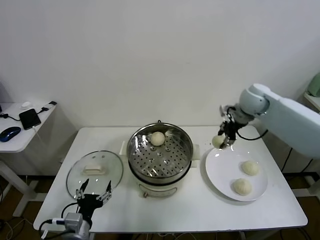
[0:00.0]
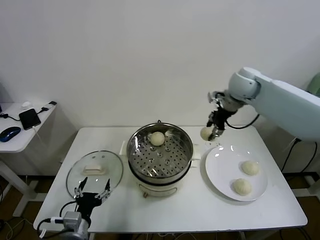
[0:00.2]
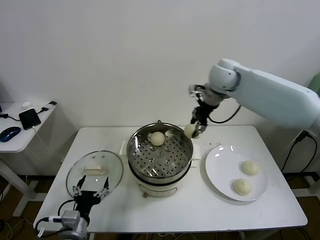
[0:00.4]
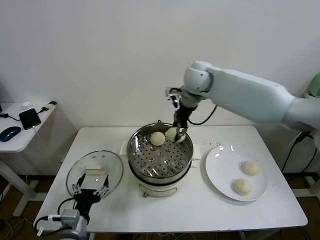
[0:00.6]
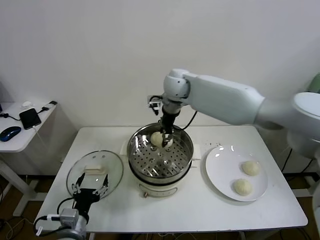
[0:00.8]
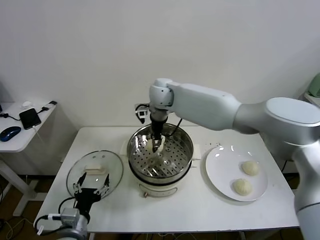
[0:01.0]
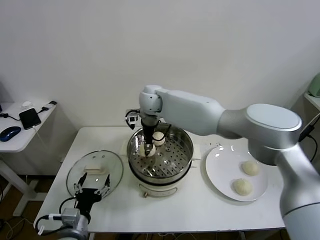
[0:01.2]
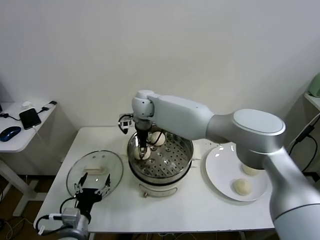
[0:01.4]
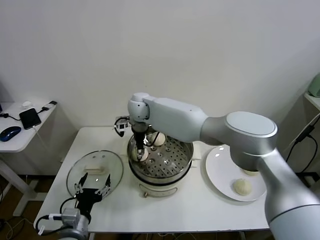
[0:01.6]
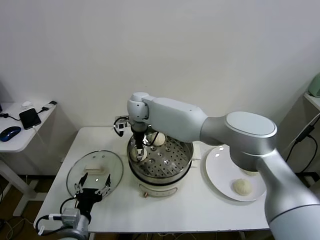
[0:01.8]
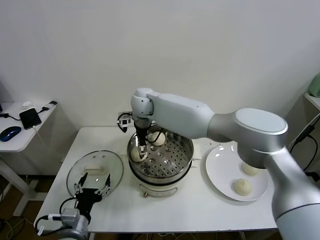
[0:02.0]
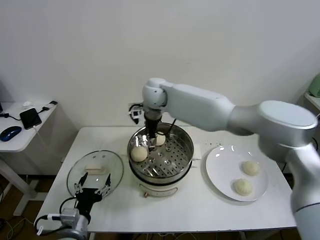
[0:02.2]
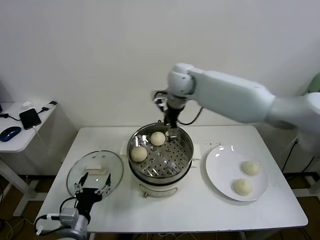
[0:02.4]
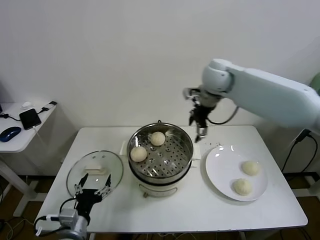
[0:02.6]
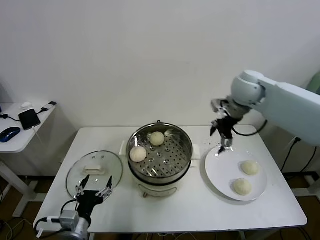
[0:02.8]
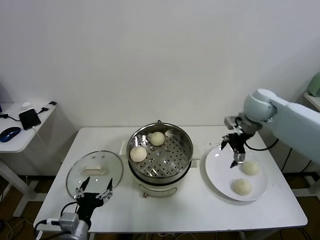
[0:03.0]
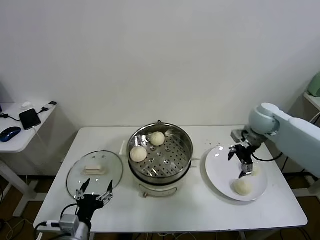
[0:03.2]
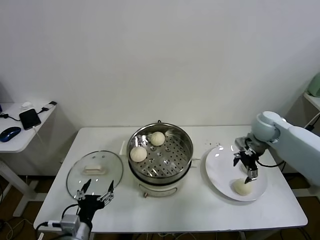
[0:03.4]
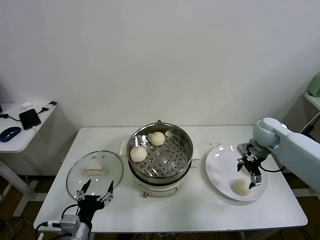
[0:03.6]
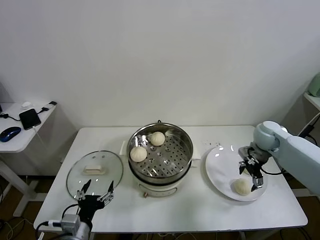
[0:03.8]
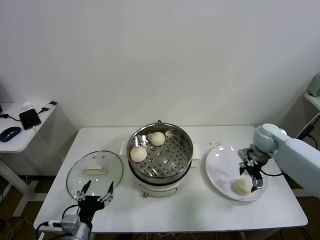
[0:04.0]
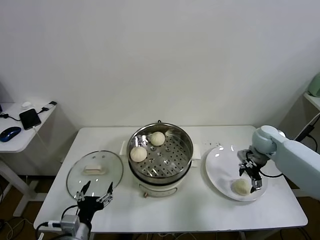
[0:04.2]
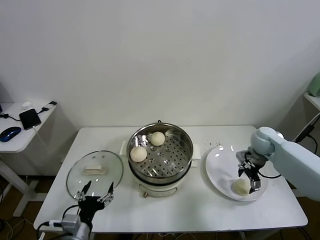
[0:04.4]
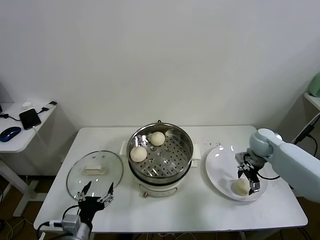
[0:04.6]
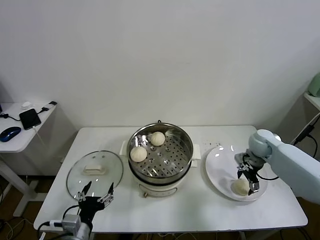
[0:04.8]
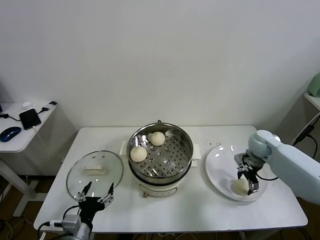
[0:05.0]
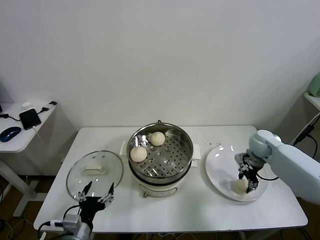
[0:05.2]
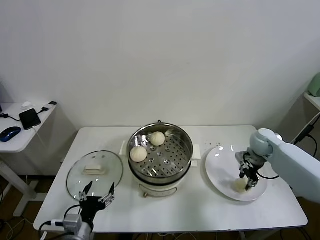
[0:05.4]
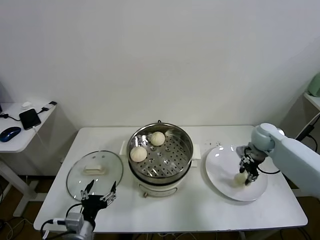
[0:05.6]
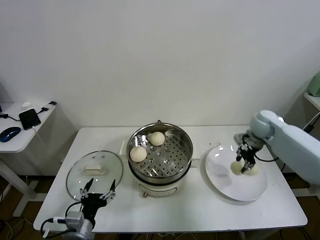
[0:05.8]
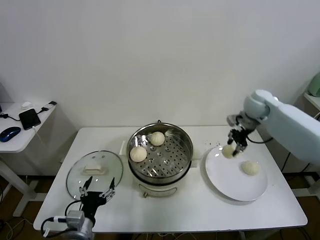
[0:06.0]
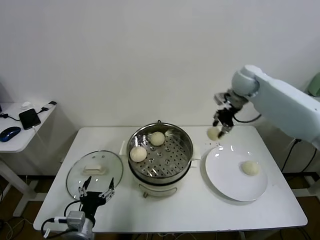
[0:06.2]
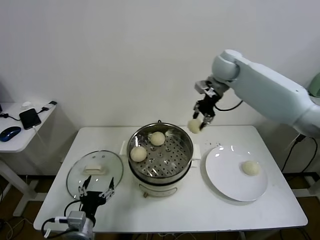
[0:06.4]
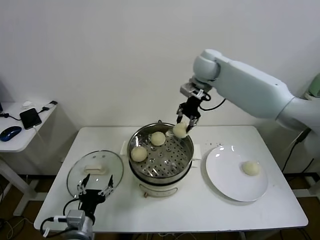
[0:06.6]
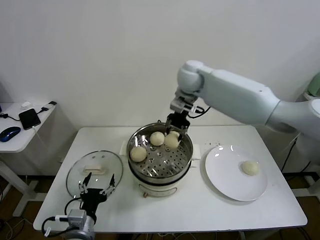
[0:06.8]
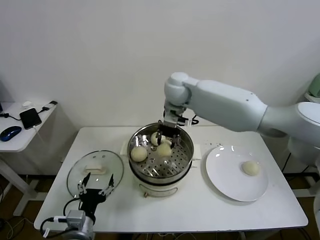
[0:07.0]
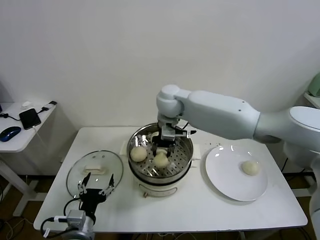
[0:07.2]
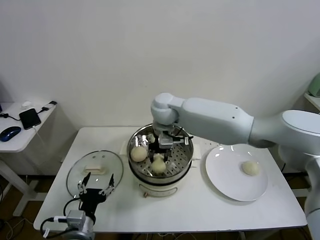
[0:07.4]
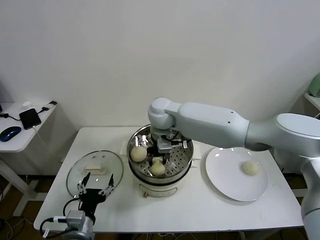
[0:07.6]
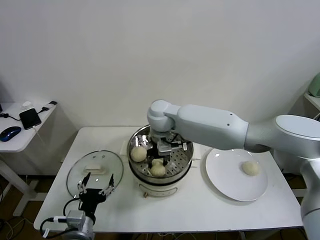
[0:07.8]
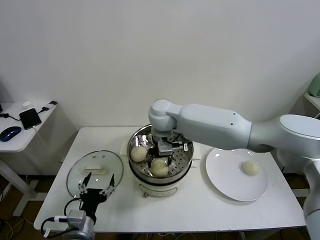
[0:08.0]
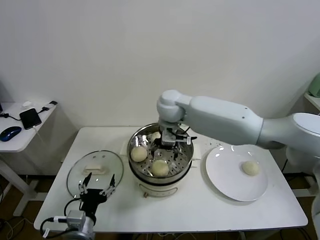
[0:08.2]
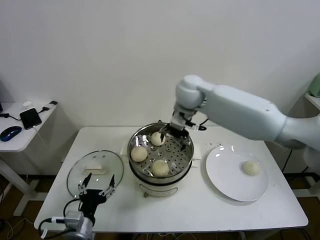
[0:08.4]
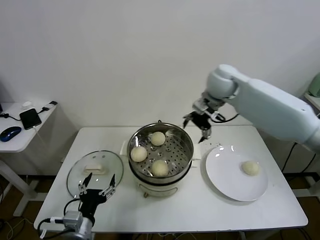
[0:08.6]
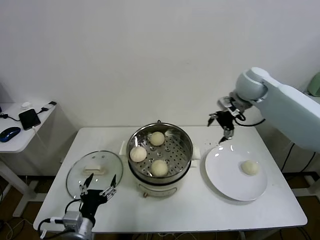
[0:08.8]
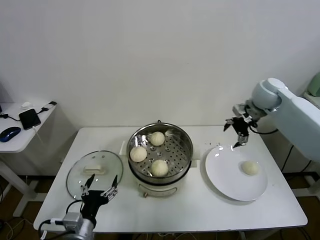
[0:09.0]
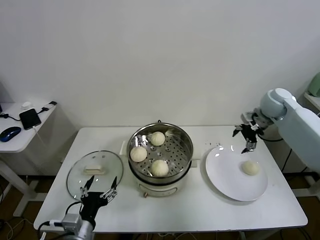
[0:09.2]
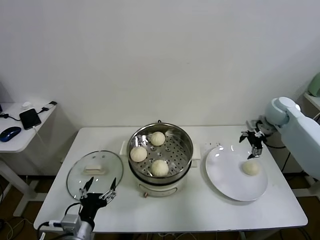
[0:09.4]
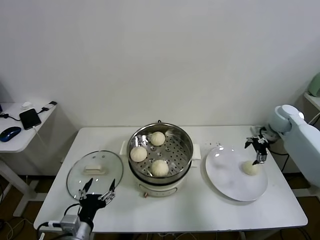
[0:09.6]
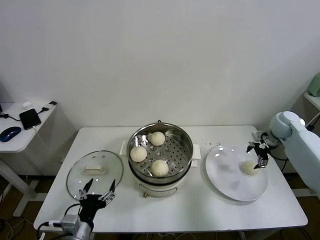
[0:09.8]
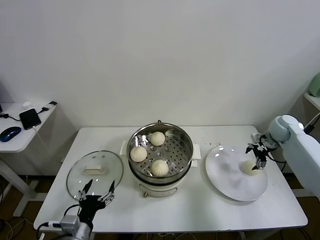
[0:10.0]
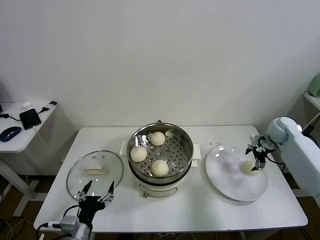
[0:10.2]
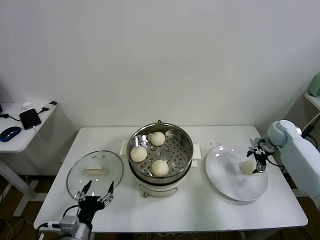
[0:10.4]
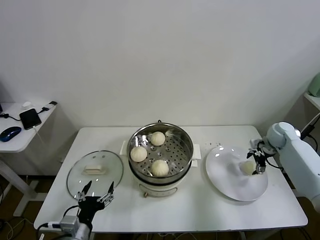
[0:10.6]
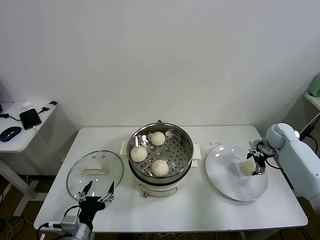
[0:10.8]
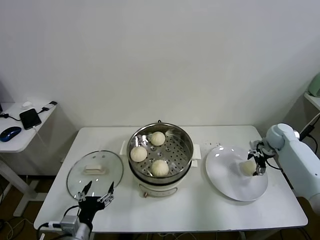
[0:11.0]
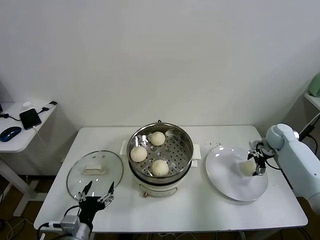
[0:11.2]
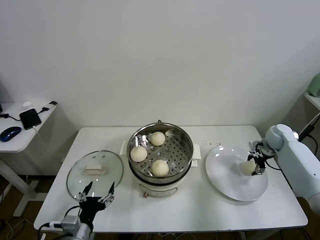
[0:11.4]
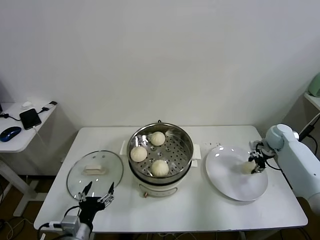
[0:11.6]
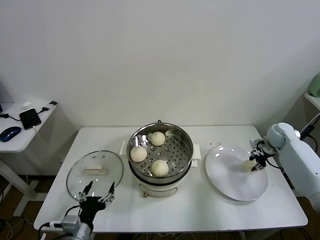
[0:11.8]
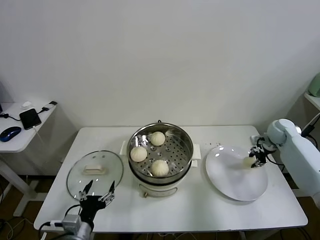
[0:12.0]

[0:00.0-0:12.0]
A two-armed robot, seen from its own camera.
Task of the whole recording: take steamed baozi put them in steamer.
Step, 0:00.0 to 0:01.8: Place the baozi on the steamer with right gripper.
Step, 0:02.0 to 0:05.2: Grasp the baozi in the plate with right gripper.
Step, 0:05.4 to 0:08.0: Place the baozi on the steamer with right gripper.
Step, 0:08.2 to 0:11.4: Grasp the baozi in the plate with right gripper.
0:00.0 to 0:01.6: The right gripper shifts approximately 35 cm to the left.
0:01.6 to 0:03.0: The right gripper heads to the right, covering approximately 40 cm, and opens.
0:03.0 to 0:04.4: The right gripper travels downward by roughly 15 cm.
0:04.4 to 0:06.0: The right gripper moves upward and forward, about 15 cm, and closes.
0:06.0 to 0:07.6: The right gripper heads to the left, covering approximately 30 cm.
0:07.6 to 0:09.0: The right gripper moves to the right, roughly 35 cm, and opens up.
0:09.0 to 0:10.4: The right gripper is displaced downward and to the right by some 20 cm.
0:10.4 to 0:12.0: The right gripper closes.

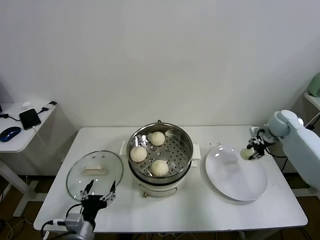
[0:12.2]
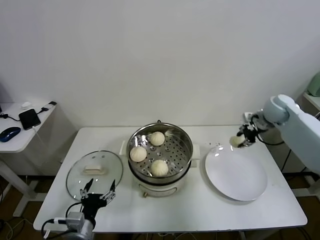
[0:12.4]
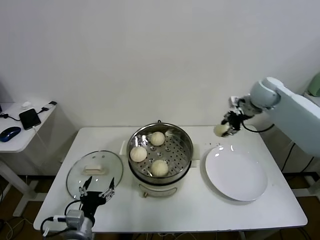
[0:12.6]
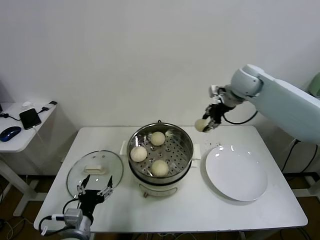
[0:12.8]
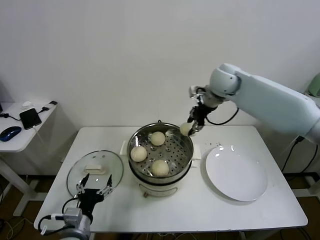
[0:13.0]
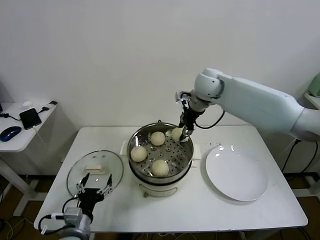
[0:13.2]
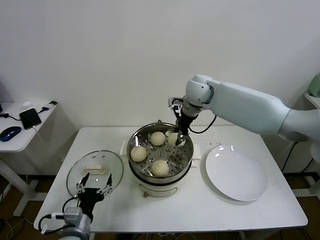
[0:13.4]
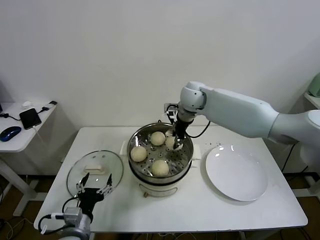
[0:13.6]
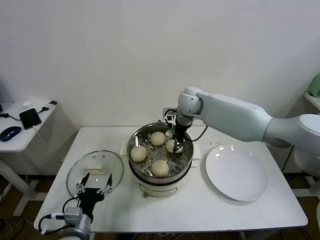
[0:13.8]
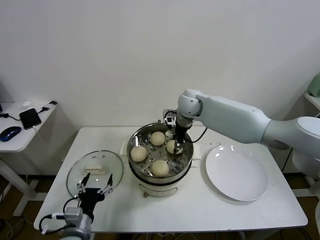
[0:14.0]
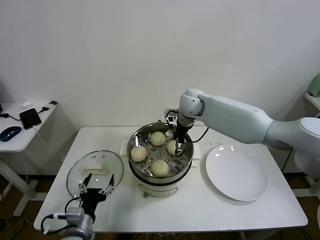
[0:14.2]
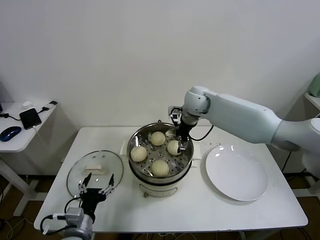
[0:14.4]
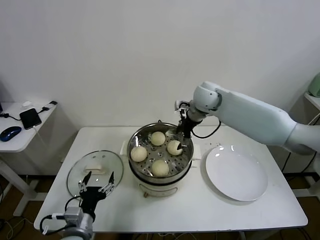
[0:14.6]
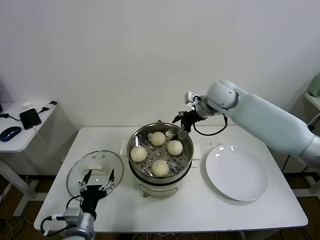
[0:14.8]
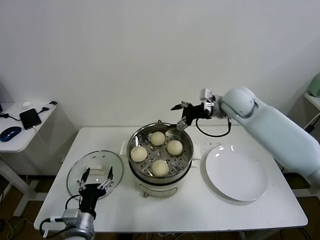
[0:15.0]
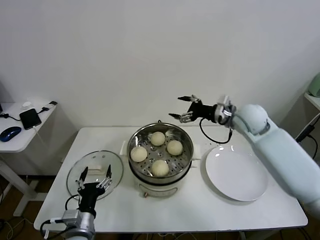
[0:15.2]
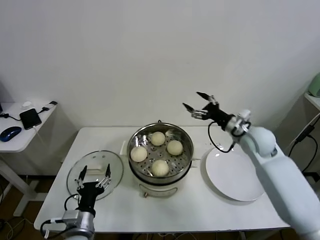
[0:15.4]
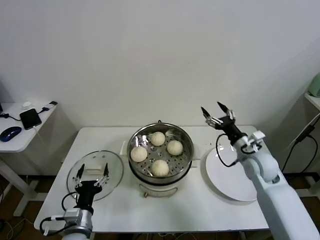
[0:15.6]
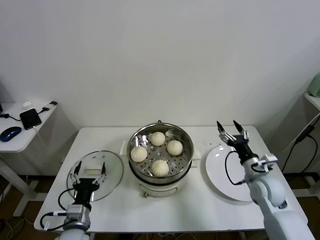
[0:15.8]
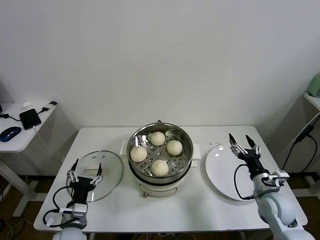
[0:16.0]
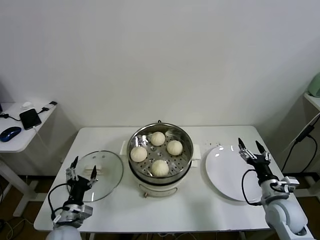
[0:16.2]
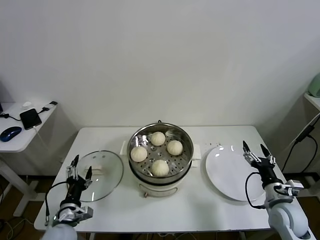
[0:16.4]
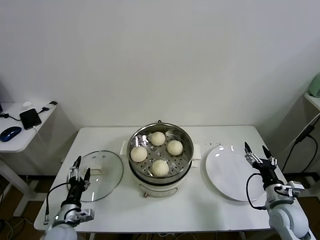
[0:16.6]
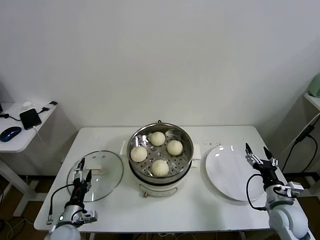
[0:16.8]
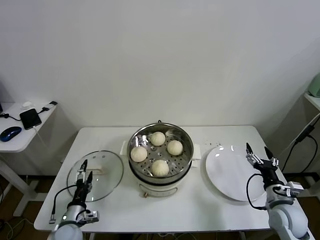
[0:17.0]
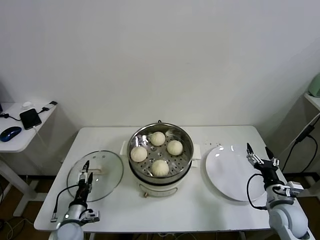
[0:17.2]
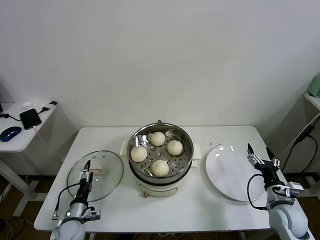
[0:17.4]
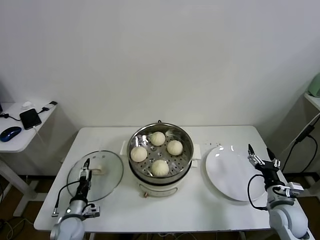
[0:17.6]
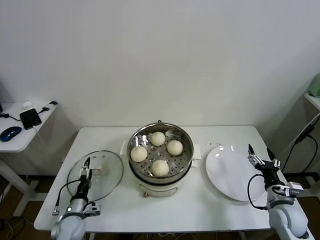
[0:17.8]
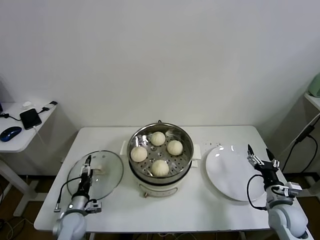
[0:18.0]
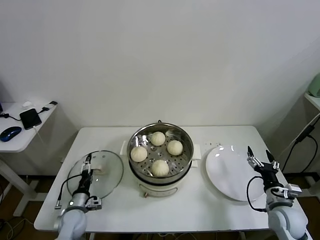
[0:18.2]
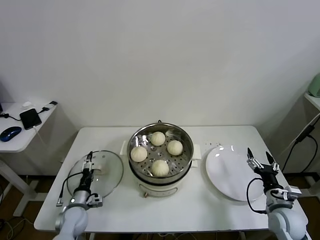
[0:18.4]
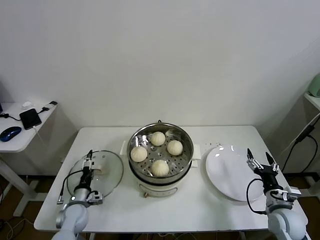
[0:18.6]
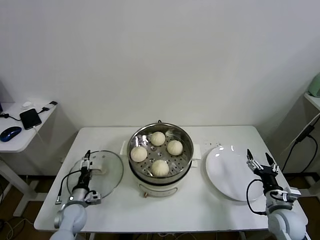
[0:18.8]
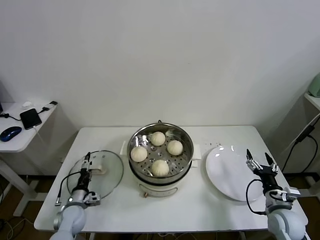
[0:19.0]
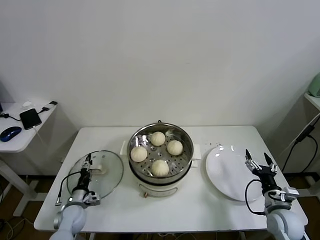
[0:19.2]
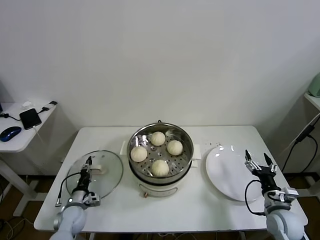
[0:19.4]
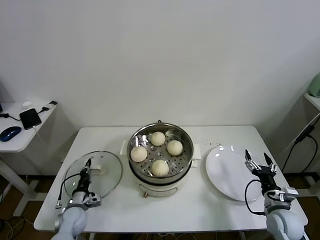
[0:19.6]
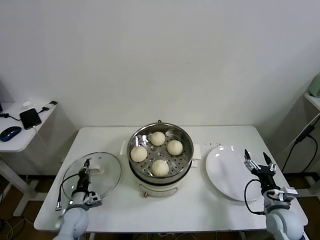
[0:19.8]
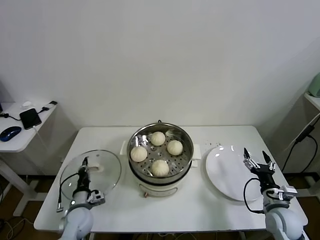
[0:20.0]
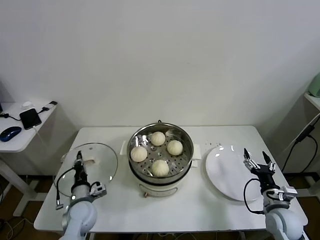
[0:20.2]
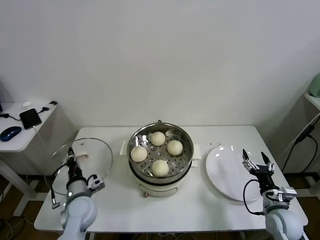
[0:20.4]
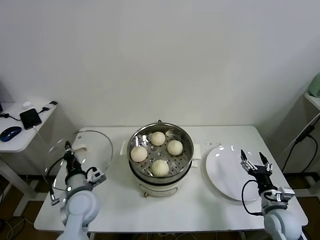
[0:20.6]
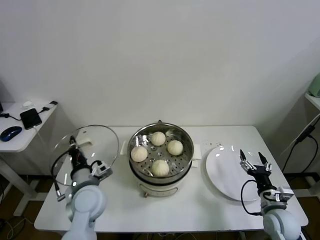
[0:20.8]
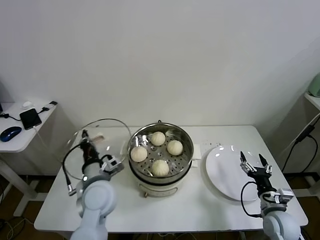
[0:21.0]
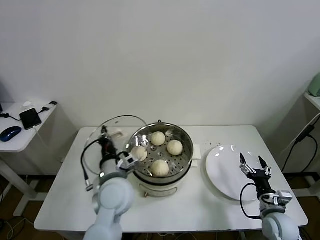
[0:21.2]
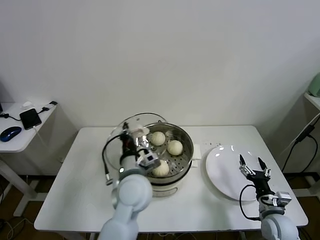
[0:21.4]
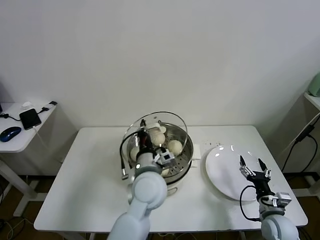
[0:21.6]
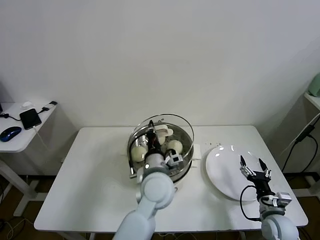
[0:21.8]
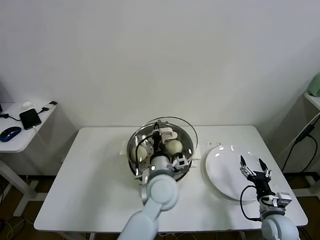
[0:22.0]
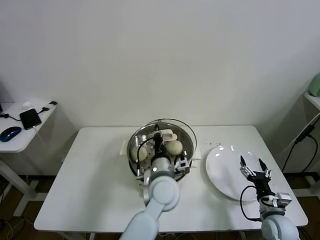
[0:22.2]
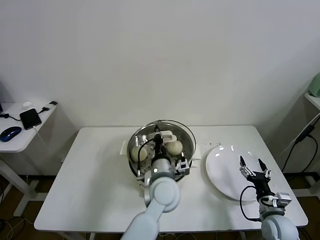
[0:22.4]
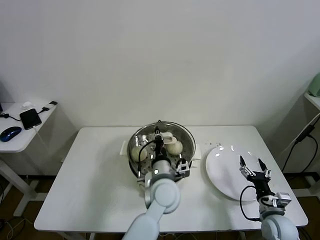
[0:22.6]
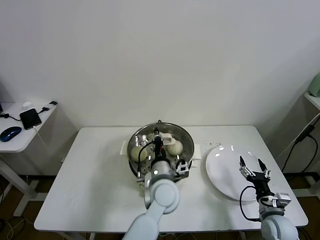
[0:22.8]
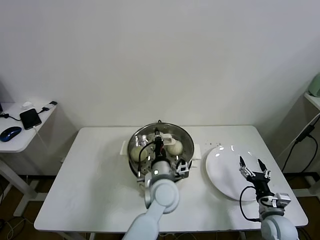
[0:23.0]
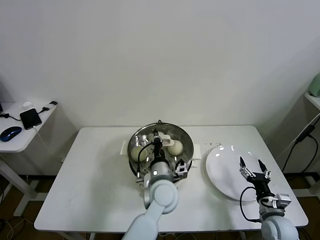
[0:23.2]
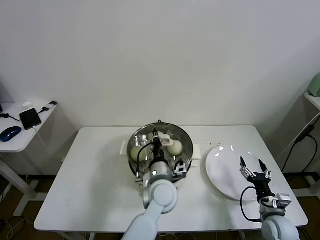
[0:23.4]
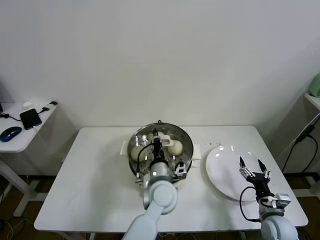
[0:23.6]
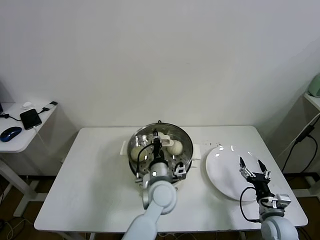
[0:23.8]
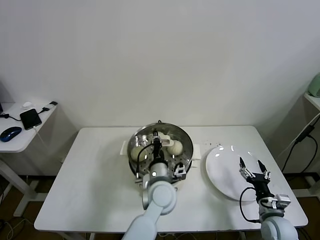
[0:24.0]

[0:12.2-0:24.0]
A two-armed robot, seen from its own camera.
Task of the whole recording: take steamed baozi put them in steamer.
Step, 0:12.2 to 0:14.2: Place the baozi on the steamer with right gripper.
Step, 0:14.4 to 0:19.6: Grasp the pot lid with left gripper.
0:12.2 to 0:13.6: The right gripper goes some 35 cm to the left.
0:13.6 to 0:15.2: The right gripper heads to the right and backward, covering about 20 cm, and opens up.
0:15.2 to 0:16.6: The left gripper heads to the left and downward, covering about 10 cm; the right gripper shifts about 30 cm backward, downward and to the right.
0:16.6 to 0:18.2: The left gripper is displaced forward and downward by some 10 cm.
0:18.2 to 0:19.6: The left gripper closes.
0:19.6 to 0:21.0: The left gripper heads upward and to the right, covering about 25 cm.
0:21.0 to 0:22.6: The left gripper travels to the right by roughly 20 cm.
0:22.6 to 0:24.0: The grippers stay close to where they were, moving slightly.
